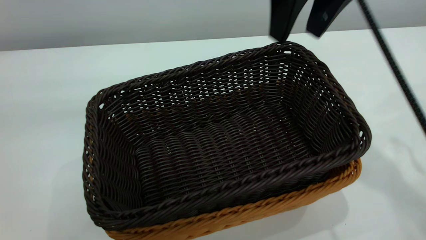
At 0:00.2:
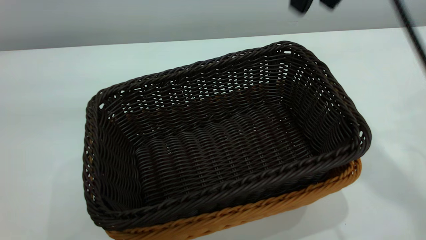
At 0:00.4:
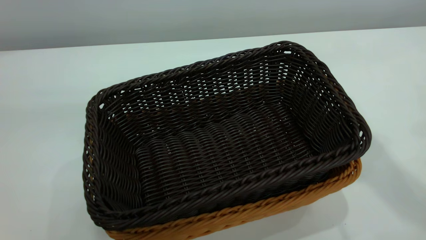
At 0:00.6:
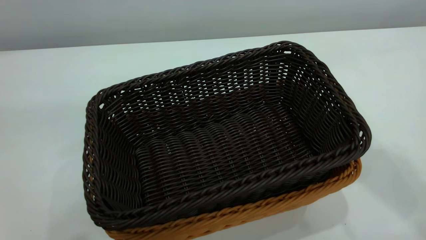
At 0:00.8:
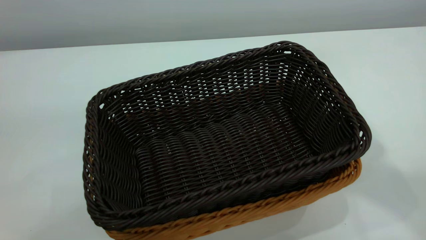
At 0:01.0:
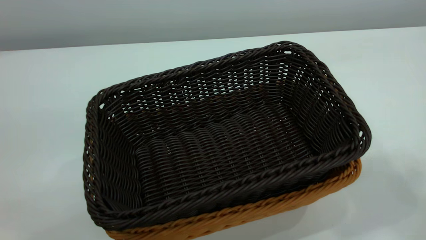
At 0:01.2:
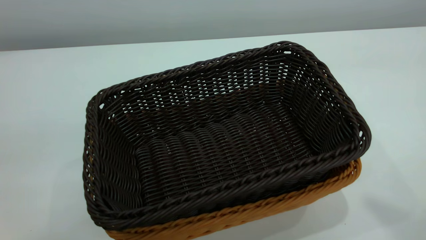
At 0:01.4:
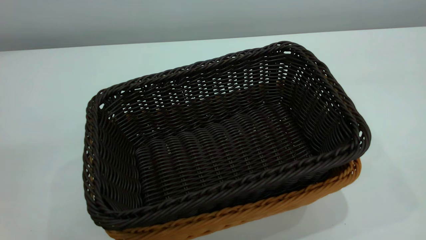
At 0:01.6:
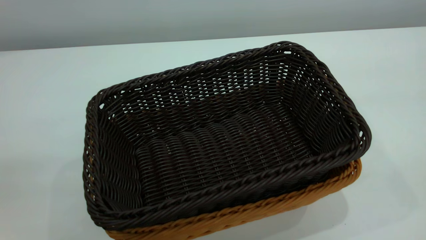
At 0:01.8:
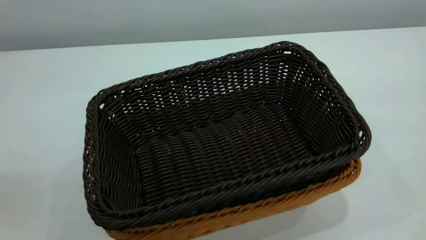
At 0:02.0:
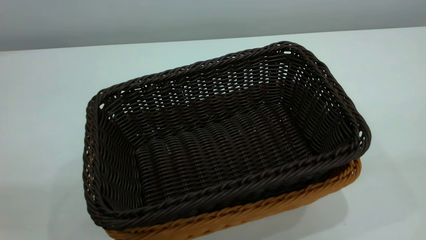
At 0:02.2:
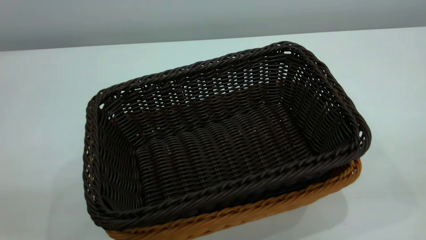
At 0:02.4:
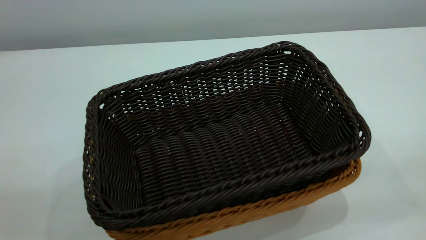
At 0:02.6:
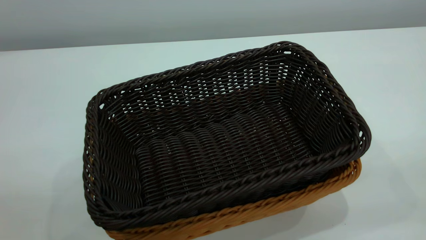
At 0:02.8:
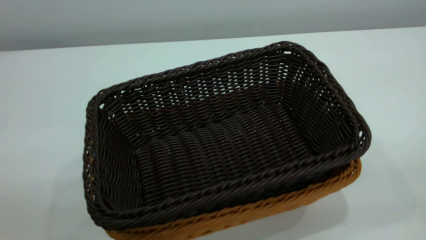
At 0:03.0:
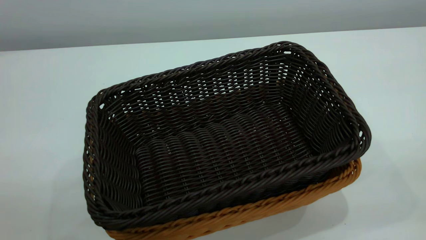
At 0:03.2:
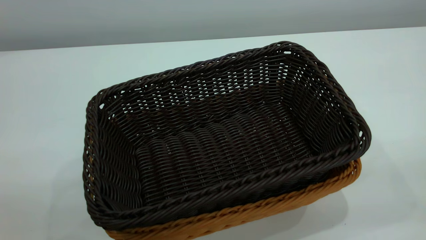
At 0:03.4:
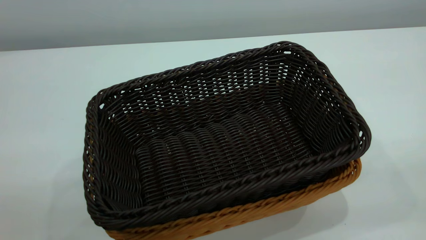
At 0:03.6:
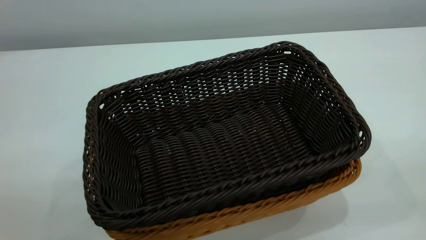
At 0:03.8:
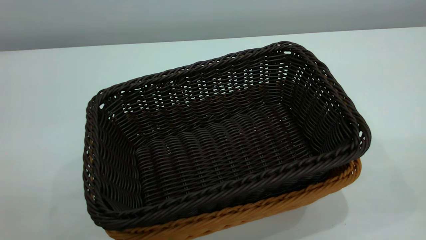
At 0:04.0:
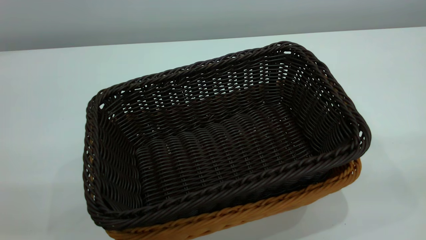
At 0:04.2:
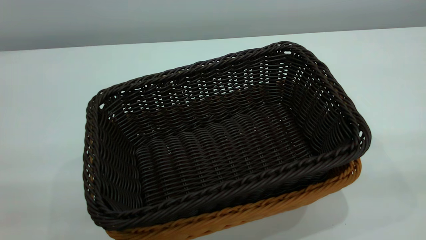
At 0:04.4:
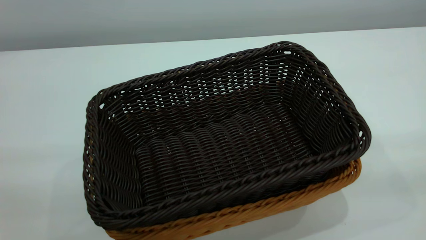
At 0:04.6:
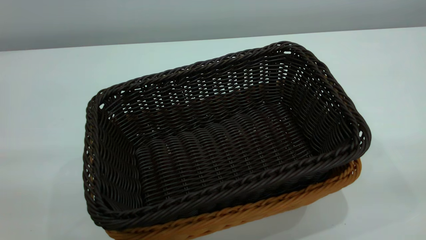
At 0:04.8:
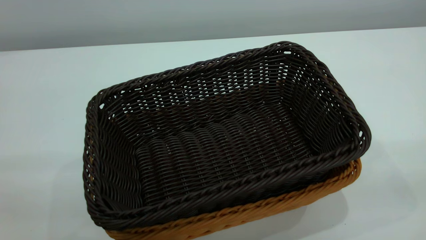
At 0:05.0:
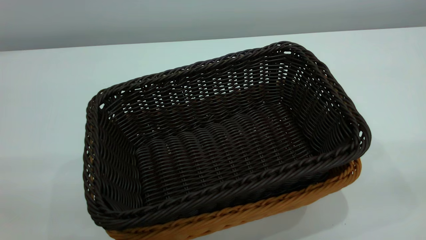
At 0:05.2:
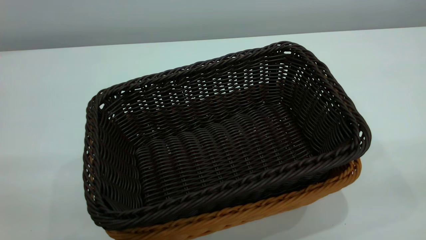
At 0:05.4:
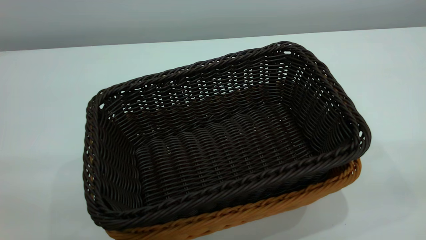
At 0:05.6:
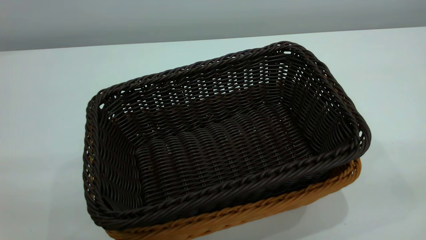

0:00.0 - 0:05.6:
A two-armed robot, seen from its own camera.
Task of the whole recording: the left gripper grasp the brown basket and place it in the center of the table, the right gripper grasp the black basket and place it inside the brown one.
0:00.0 - 0:01.4: The right gripper heads backward, upward and to the right, covering some 40 cm, and closes up.

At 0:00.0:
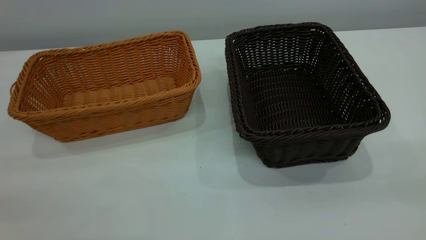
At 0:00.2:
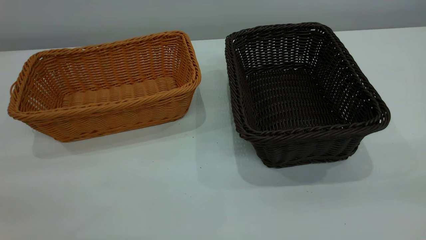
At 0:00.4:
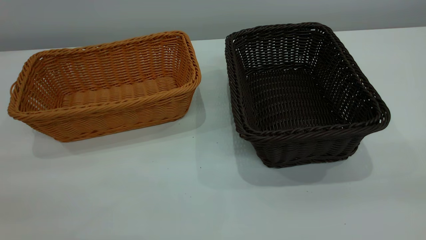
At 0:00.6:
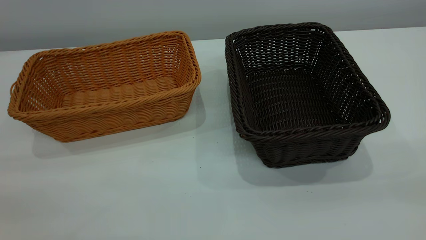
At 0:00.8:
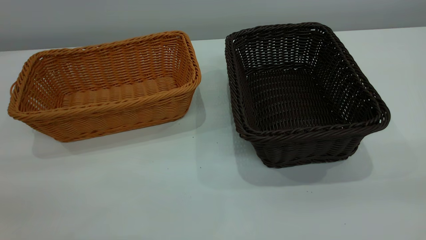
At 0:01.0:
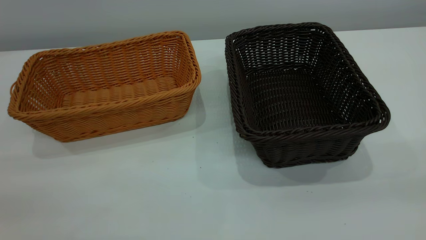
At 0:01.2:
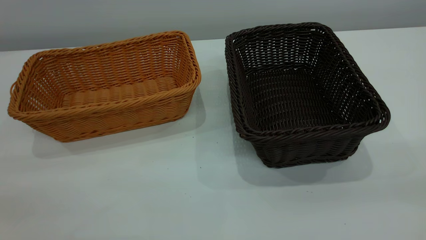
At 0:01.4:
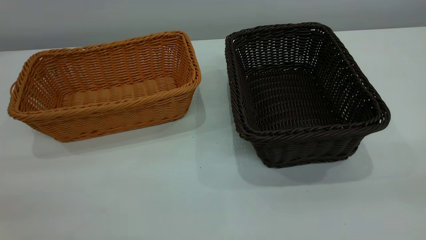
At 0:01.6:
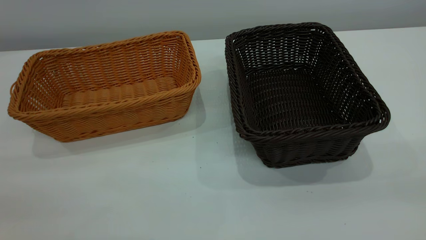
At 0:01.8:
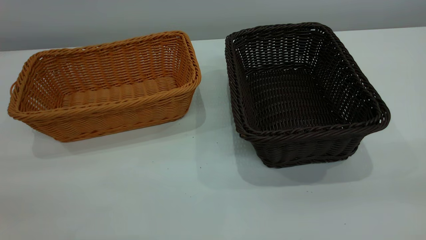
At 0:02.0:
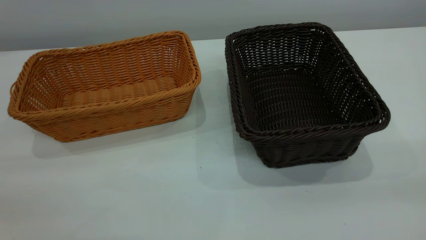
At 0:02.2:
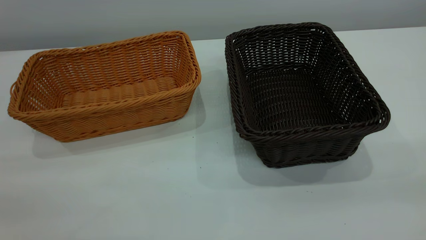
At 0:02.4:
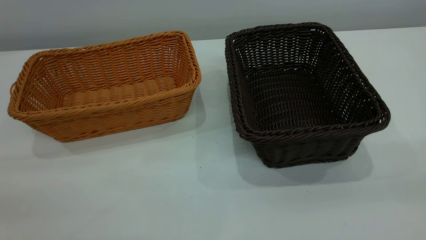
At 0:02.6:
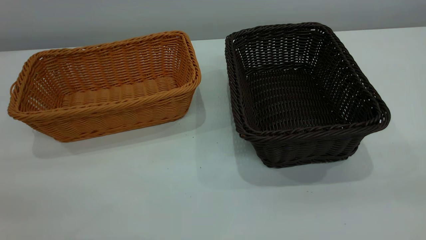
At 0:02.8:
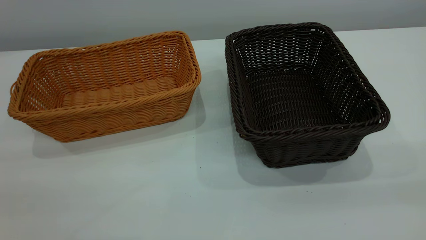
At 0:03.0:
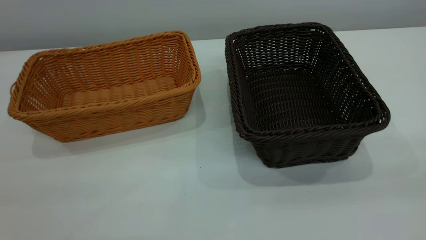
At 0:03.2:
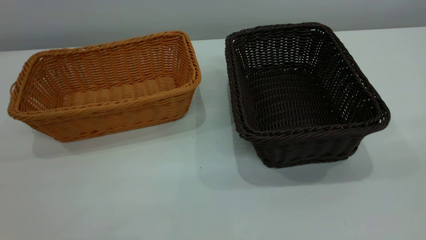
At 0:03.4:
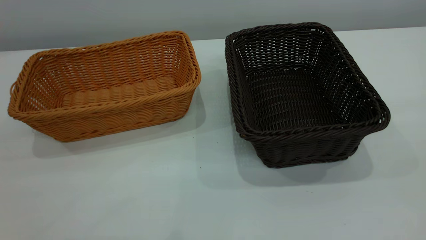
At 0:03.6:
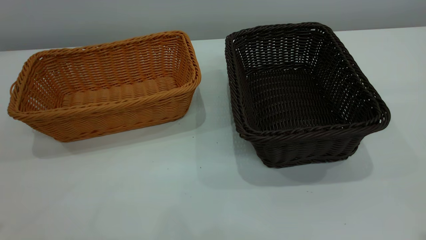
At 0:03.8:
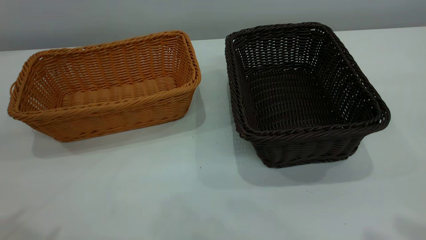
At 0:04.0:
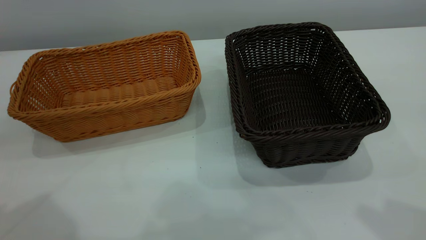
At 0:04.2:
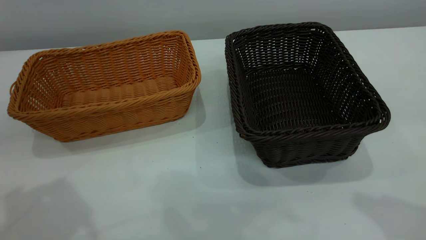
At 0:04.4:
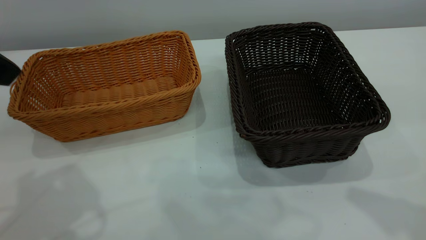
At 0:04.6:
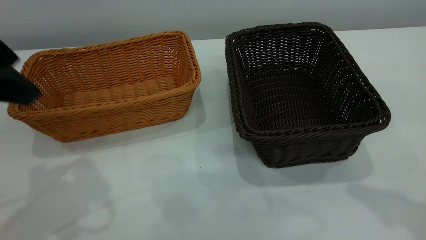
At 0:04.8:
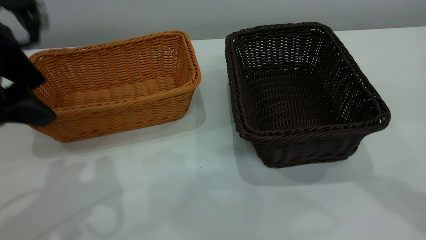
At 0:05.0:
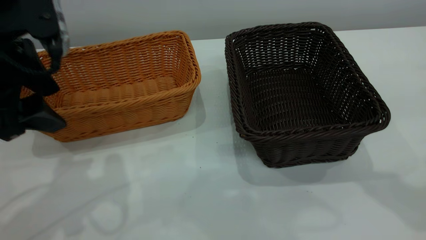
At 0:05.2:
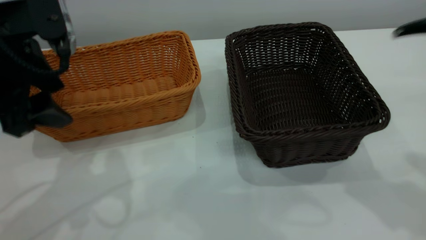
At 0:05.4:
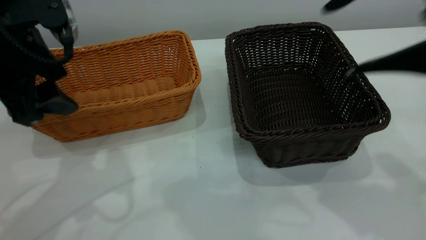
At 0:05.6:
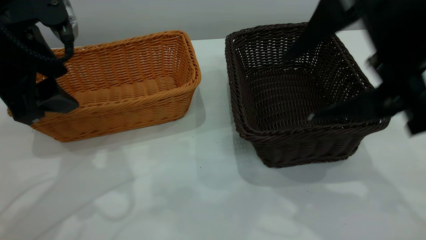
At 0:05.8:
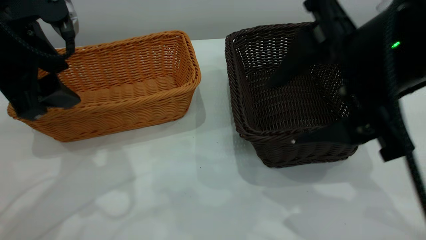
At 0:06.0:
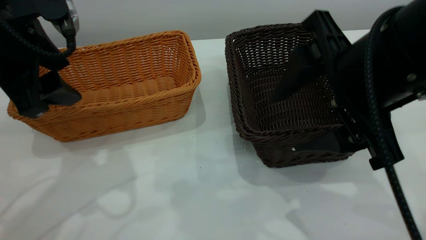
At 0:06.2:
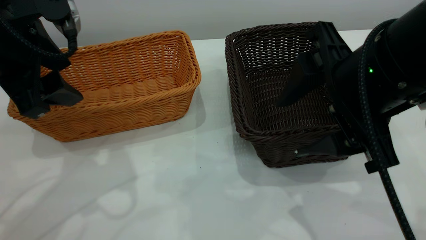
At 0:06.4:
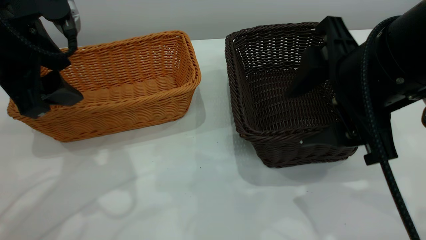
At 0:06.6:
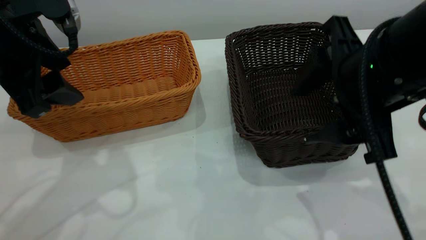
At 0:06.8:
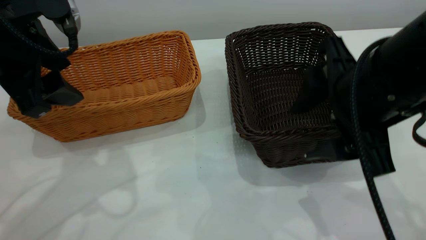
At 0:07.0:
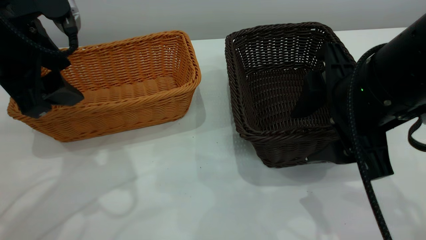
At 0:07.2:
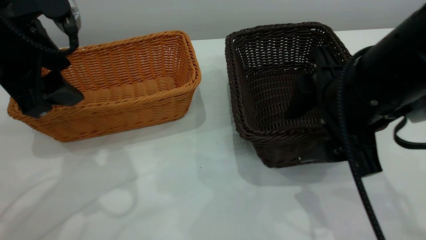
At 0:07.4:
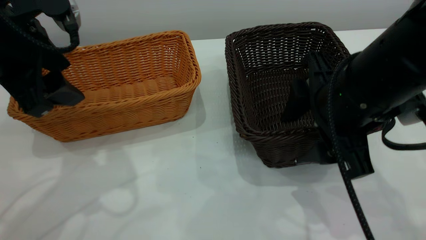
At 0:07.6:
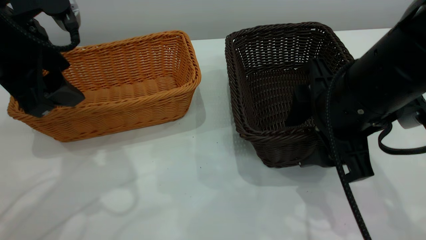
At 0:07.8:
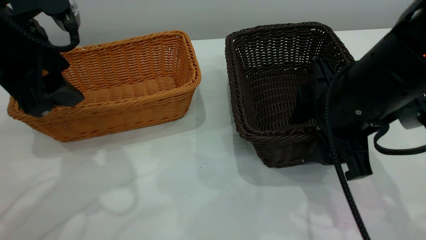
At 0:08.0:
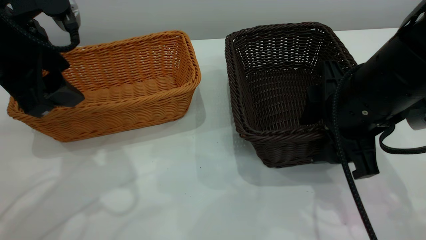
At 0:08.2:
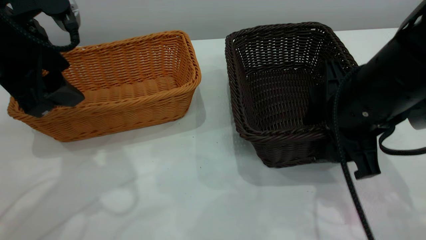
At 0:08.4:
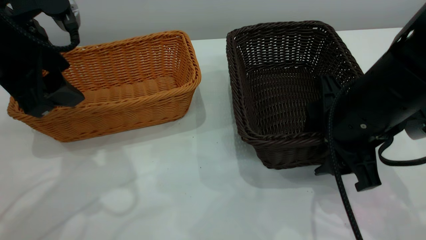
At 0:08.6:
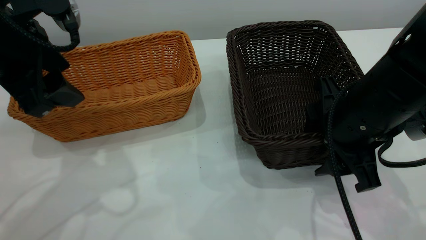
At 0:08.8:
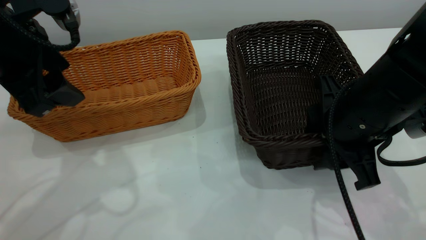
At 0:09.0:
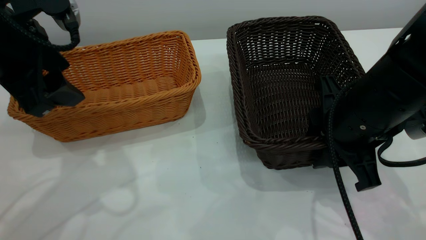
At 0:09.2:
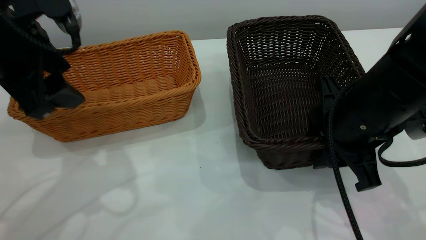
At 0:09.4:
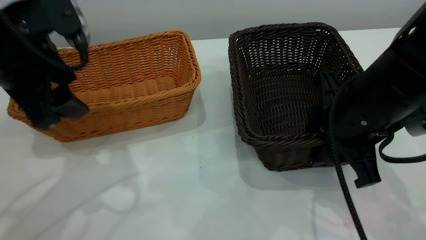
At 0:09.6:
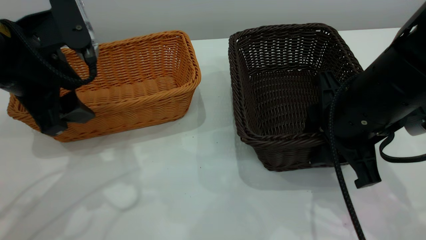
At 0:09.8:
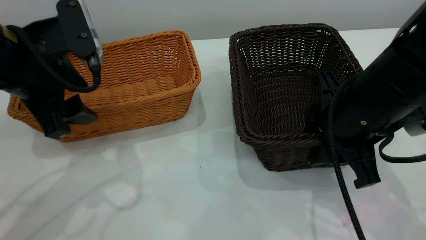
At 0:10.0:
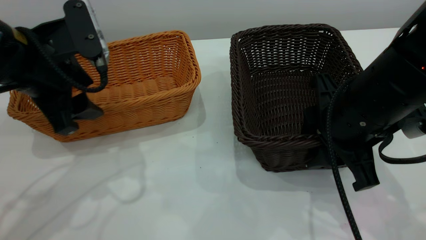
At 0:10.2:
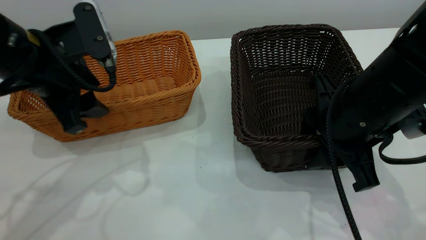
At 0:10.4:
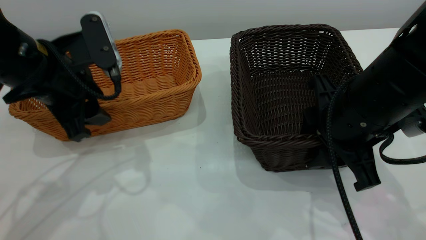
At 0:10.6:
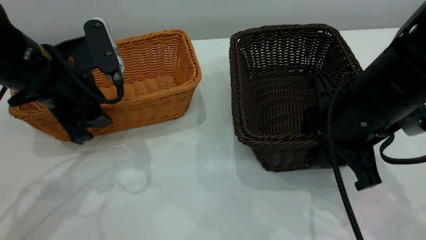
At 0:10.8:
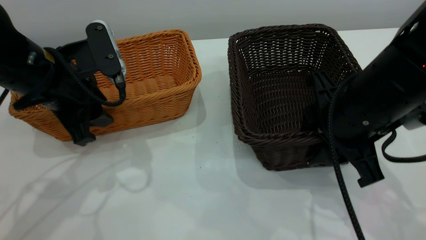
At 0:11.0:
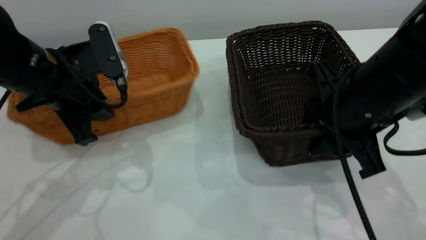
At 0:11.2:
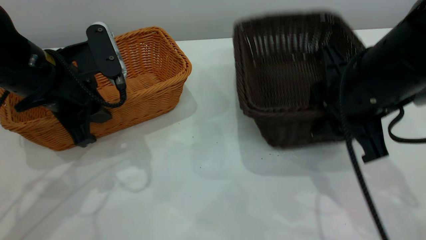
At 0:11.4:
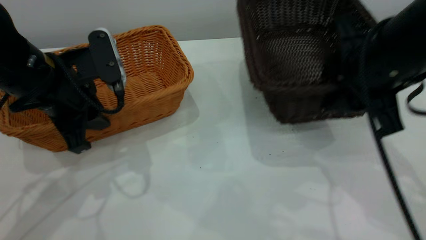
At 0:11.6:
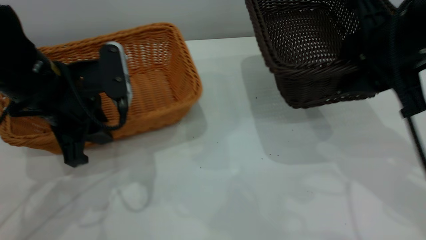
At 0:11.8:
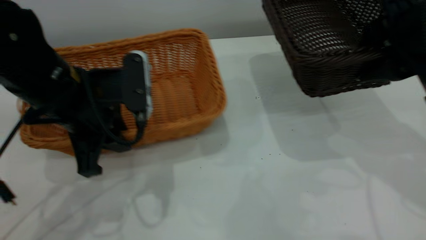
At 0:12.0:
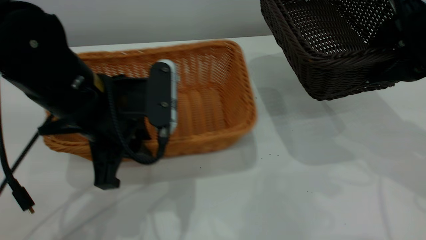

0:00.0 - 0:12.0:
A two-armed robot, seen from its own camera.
Task of the whole recording: the left gripper grasp the brown basket and place it in the center of the table, the right gripper grasp the black basket and place it inside the brown one.
Step, 0:00.0 - 0:11.8: Pick up the light basket with the right gripper.
0:00.0 - 0:01.6: Both grippers stay about where they are.
0:04.4 - 0:06.0: The right gripper travels downward and to the left by roughly 15 cm, while the left gripper heads downward, covering roughly 5 cm.
0:06.0 - 0:07.6: The right gripper travels downward by about 5 cm.
0:07.6 - 0:09.0: The grippers move only a little.
0:09.0 - 0:10.4: The left gripper moves downward, approximately 5 cm.
0:10.4 - 0:12.0: The right gripper is displaced to the right and upward by roughly 10 cm, while the left gripper moves to the right, approximately 5 cm, and closes.
